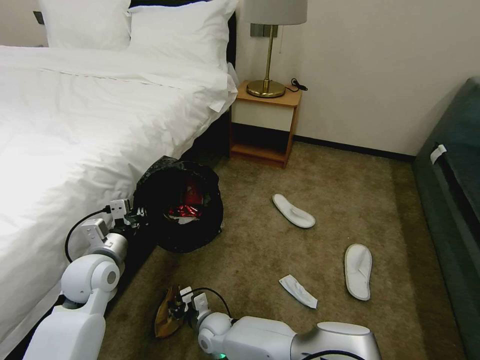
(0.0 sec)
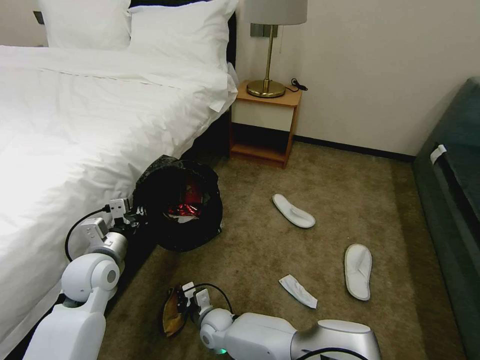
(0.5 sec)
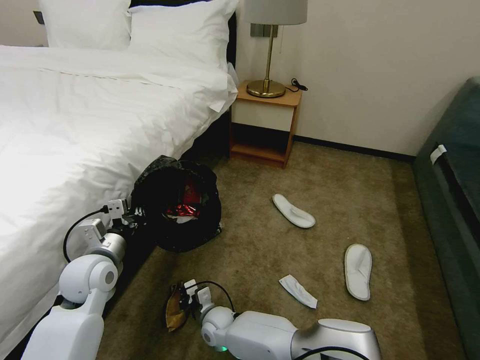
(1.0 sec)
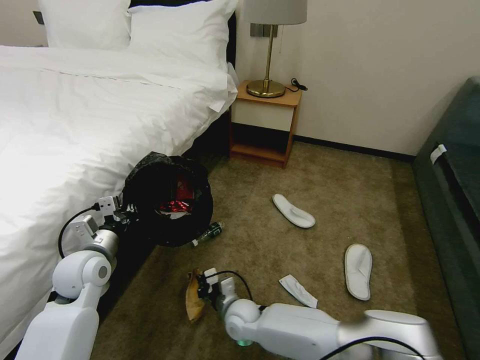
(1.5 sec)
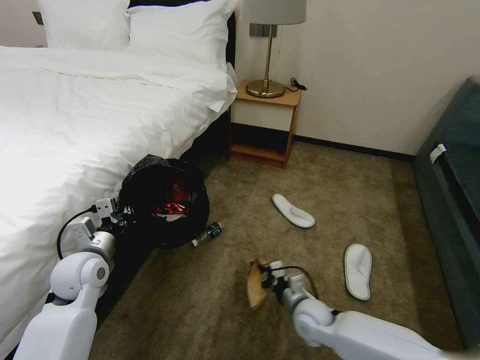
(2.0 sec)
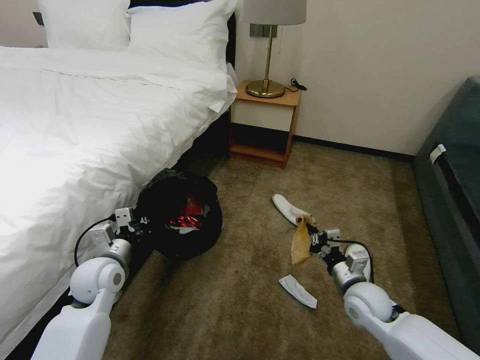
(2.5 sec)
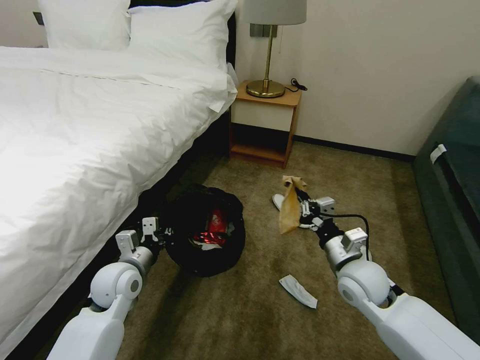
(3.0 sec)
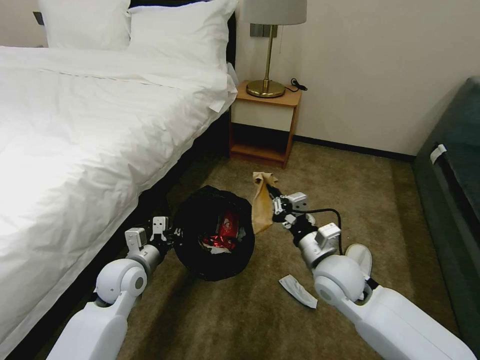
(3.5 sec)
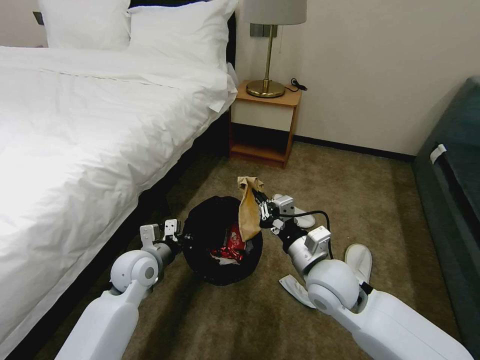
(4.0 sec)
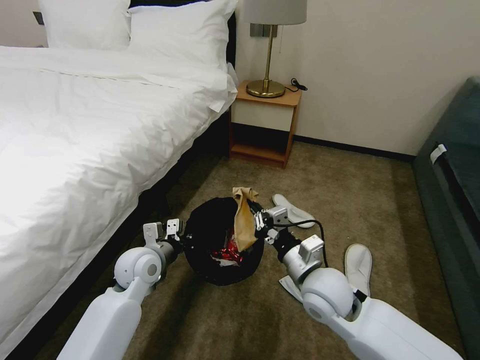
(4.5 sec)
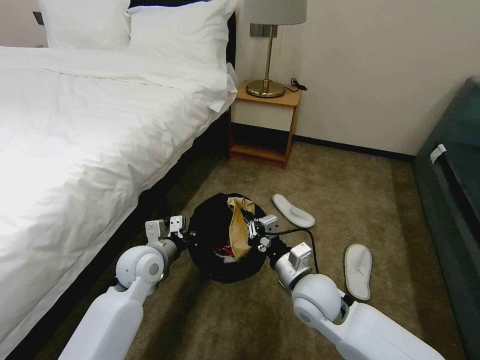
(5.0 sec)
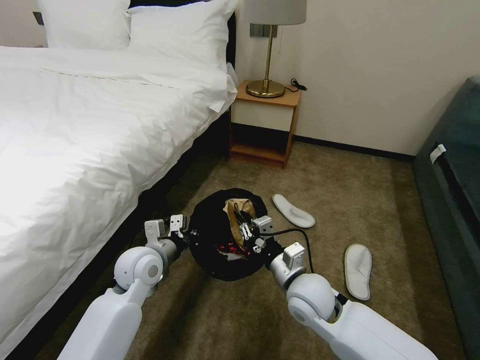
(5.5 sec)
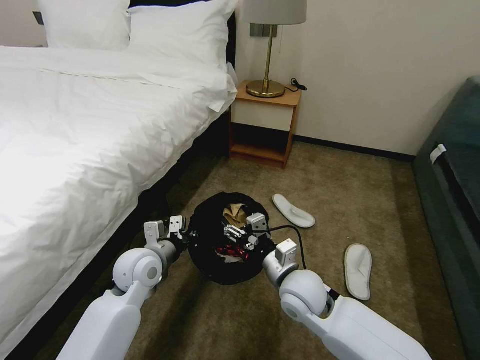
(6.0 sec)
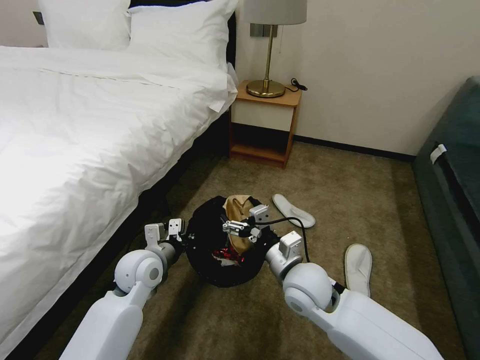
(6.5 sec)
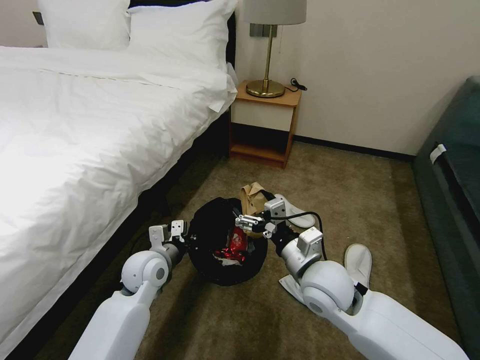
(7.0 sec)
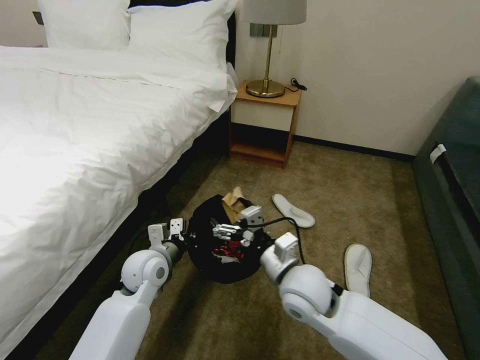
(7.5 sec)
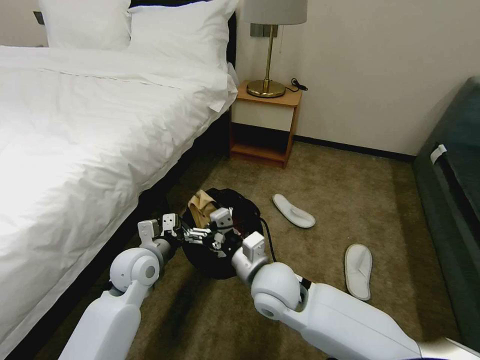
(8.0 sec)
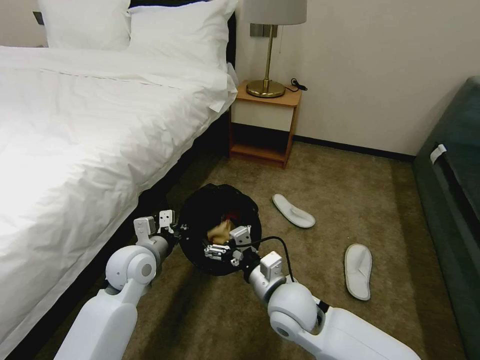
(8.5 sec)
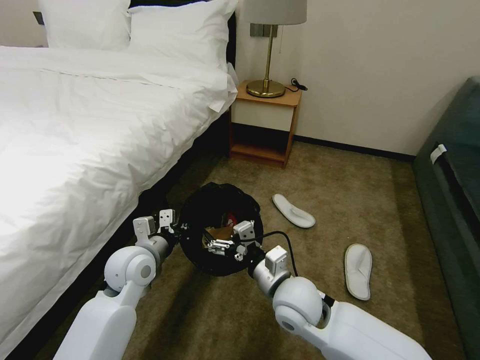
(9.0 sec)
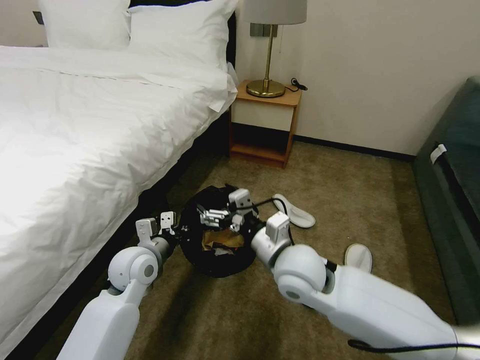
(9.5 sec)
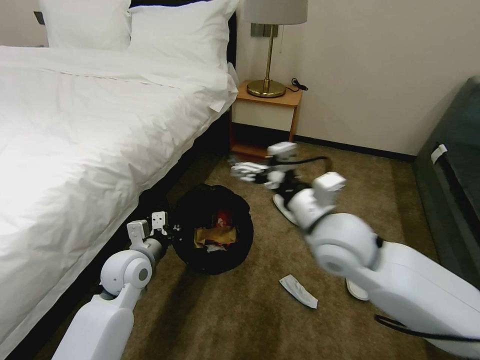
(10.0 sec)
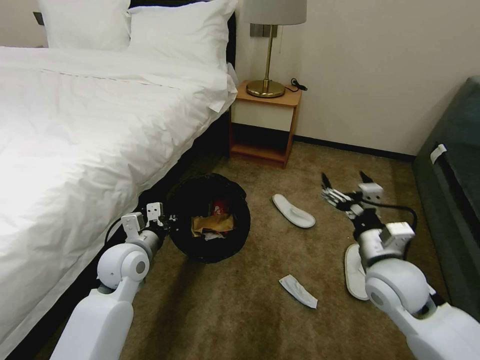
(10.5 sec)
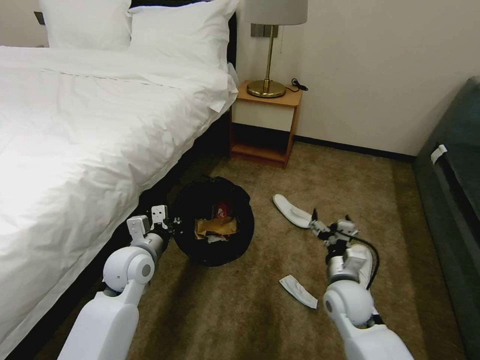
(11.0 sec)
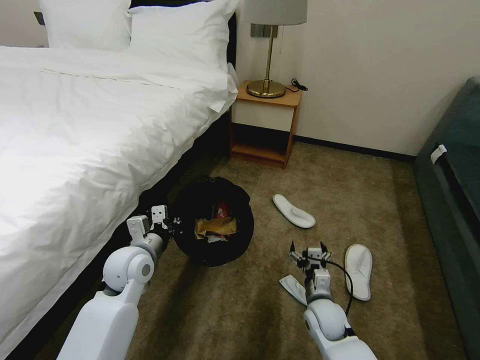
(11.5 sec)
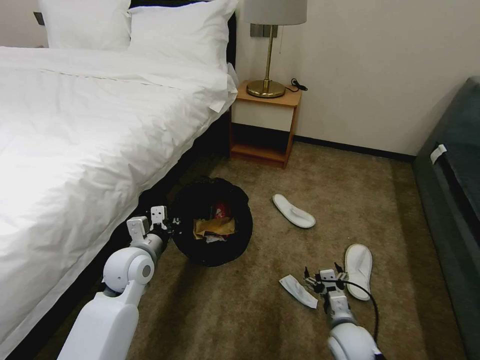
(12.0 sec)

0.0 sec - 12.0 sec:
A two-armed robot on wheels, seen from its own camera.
Task of the whole recording: Pick up the trash bin, then pick up the garbage on the floor and place it into the trash bin.
0.0 sec - 2.0 sec: The right gripper shifts approximately 25 cm to the right, and closes.
2.0 sec - 4.0 sec: The right gripper travels upward by some 20 cm; the left gripper goes about 10 cm to the right.
4.0 sec - 6.0 sec: The right gripper moves some 5 cm, and opens.
6.0 sec - 8.0 sec: The right gripper goes roughly 5 cm to the left.
8.0 sec - 10.0 sec: The right gripper shifts about 15 cm upward and to the right.
10.0 sec - 12.0 sec: The right gripper shifts about 30 cm downward.

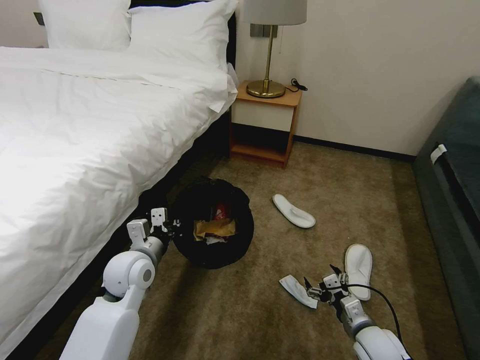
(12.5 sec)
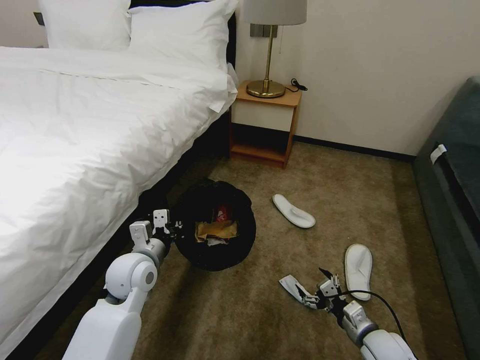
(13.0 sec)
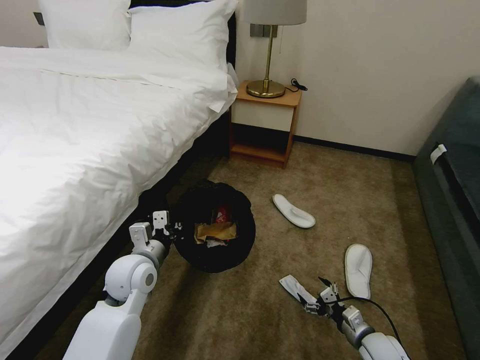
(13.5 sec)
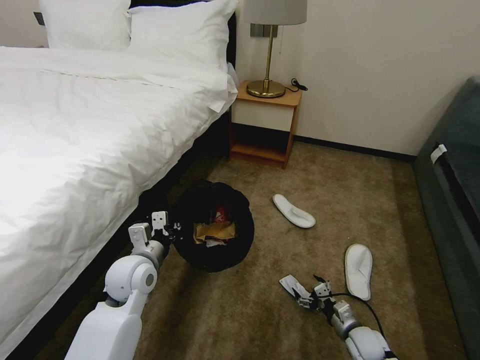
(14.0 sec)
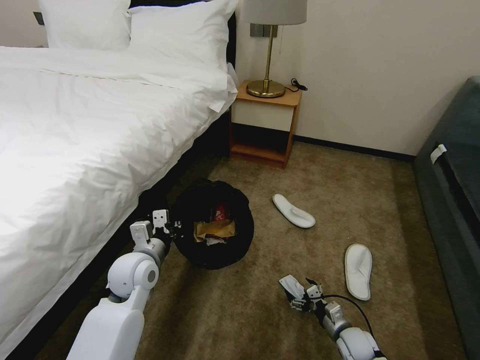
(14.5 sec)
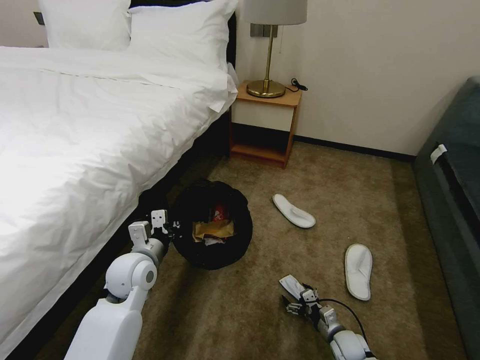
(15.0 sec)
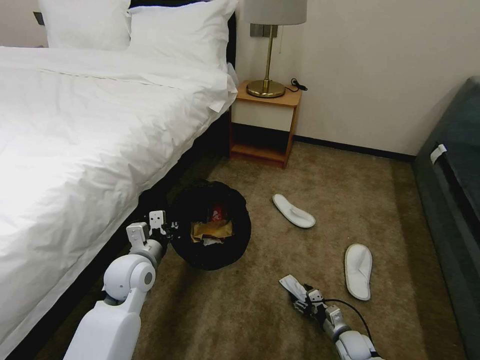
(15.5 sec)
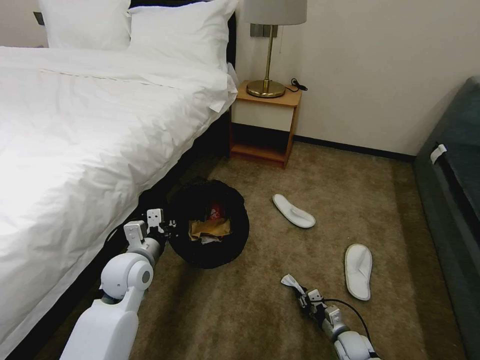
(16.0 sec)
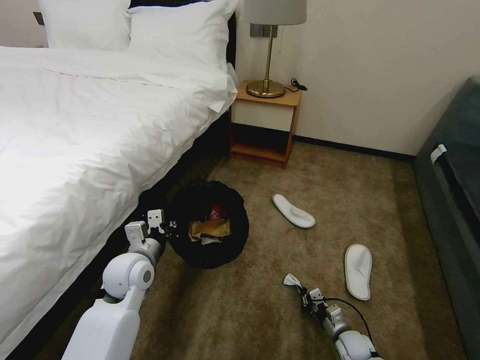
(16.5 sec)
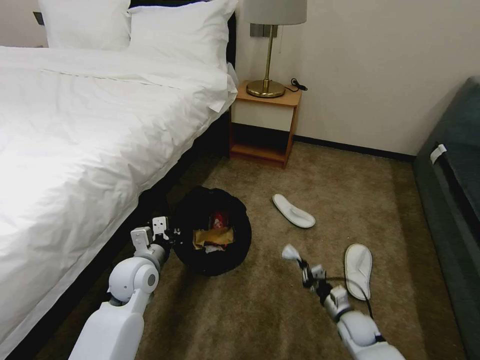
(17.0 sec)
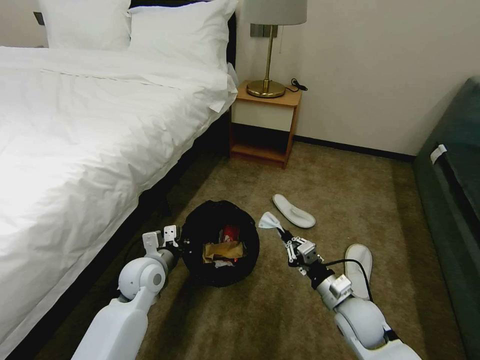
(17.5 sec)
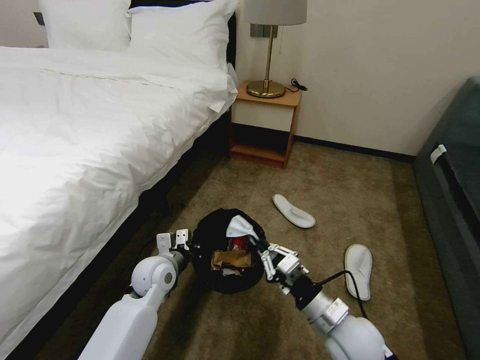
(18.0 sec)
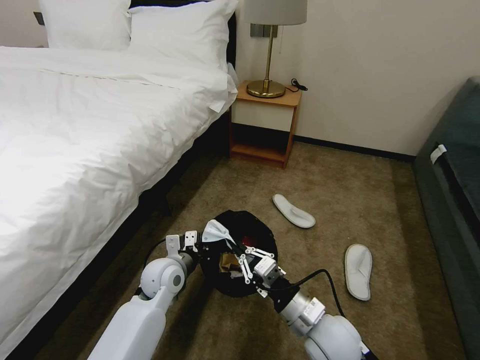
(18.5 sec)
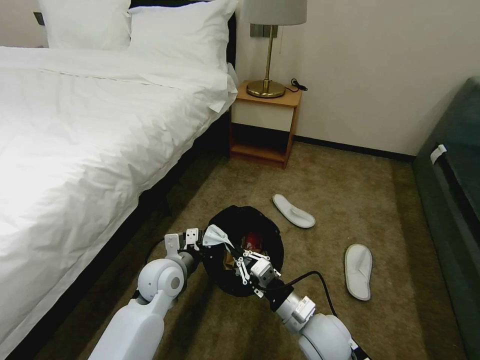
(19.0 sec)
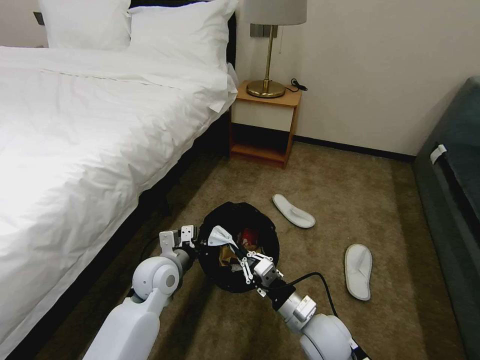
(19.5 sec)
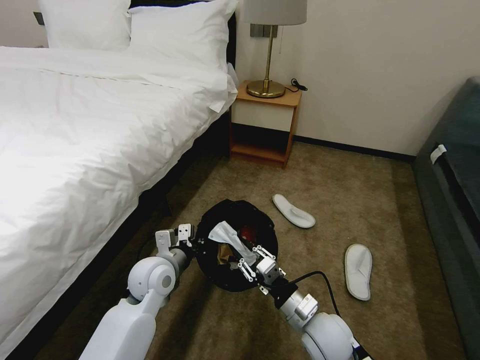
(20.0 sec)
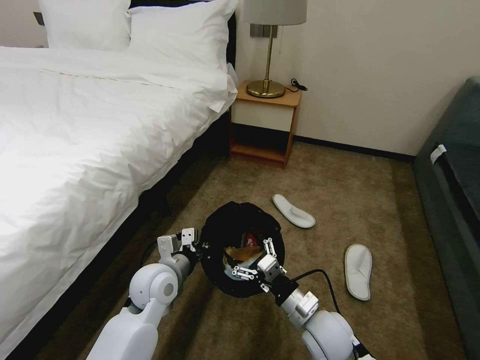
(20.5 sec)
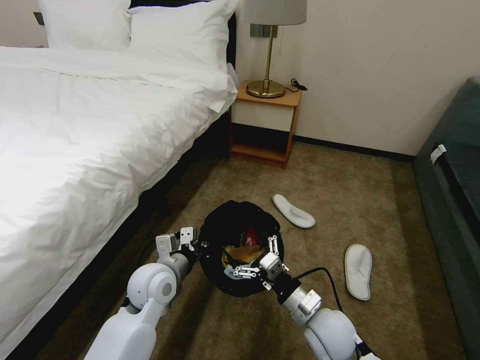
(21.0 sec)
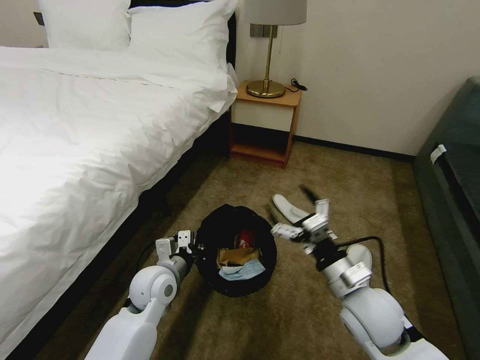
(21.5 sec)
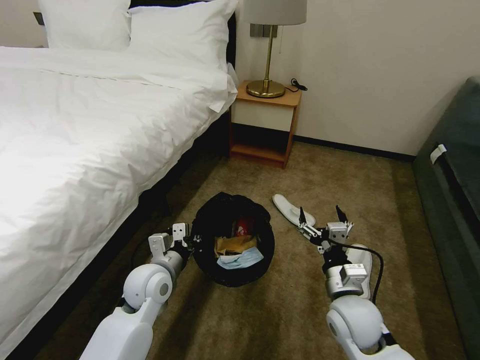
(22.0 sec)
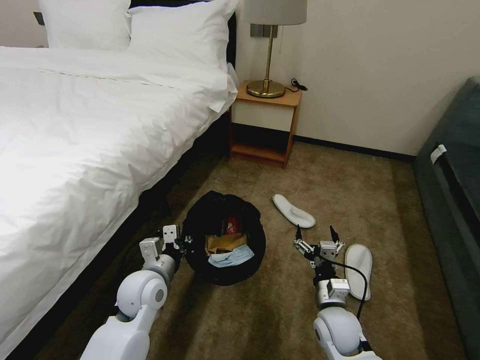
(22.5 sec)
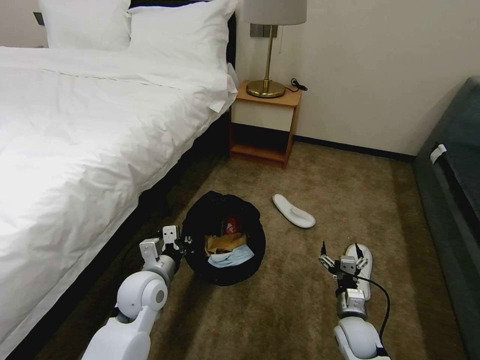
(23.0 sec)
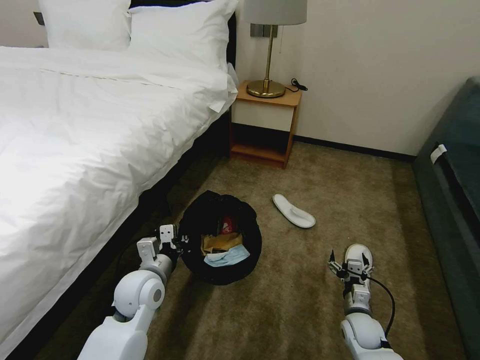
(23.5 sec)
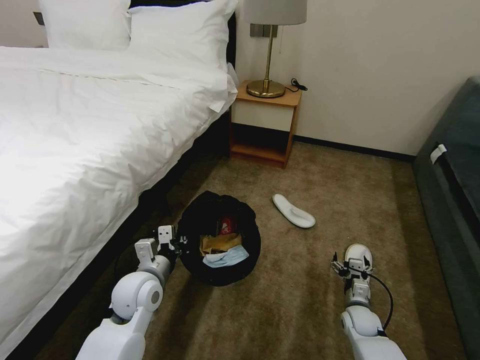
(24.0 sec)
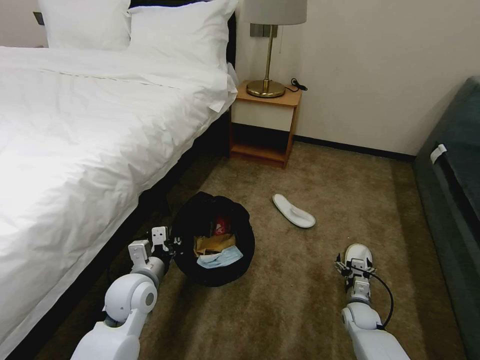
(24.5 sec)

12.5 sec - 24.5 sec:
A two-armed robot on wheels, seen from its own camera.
Task of the whole recording: Pick up the trash bin, then pick up the garbage on the floor and place it into the trash bin.
12.5 sec - 14.5 sec: The right gripper moves downward, some 10 cm.
14.5 sec - 16.5 sec: The right gripper closes its fingers.
16.5 sec - 18.5 sec: The left gripper is displaced to the right and downward by about 10 cm. Meanwhile the right gripper moves upward and to the left, roughly 30 cm.
18.5 sec - 20.5 sec: The right gripper opens. Meanwhile the left gripper shifts by about 5 cm.
20.5 sec - 22.5 sec: The right gripper goes upward and returns, about 10 cm each way.
22.5 sec - 24.5 sec: The right gripper is displaced downward, to the right and forward by approximately 20 cm.

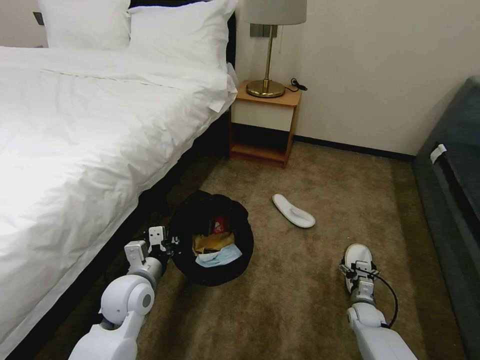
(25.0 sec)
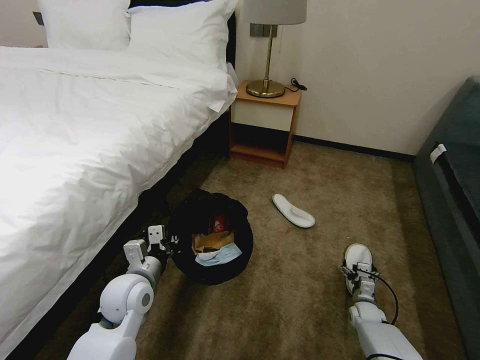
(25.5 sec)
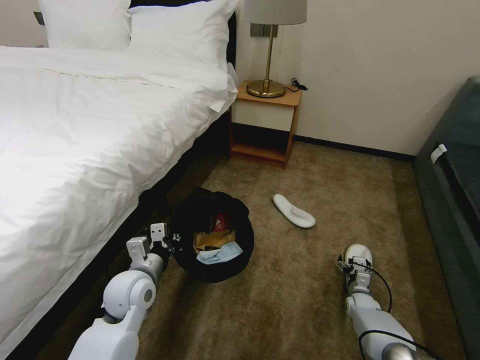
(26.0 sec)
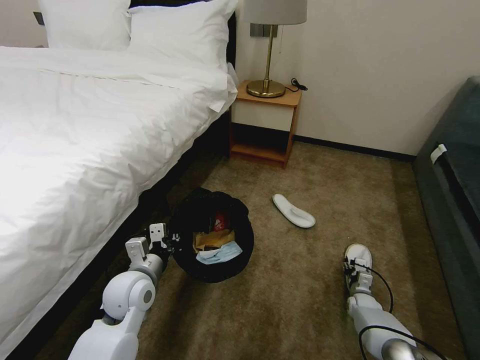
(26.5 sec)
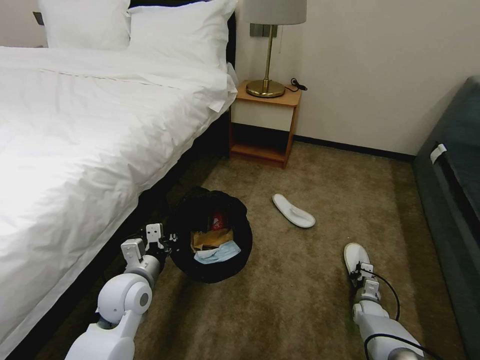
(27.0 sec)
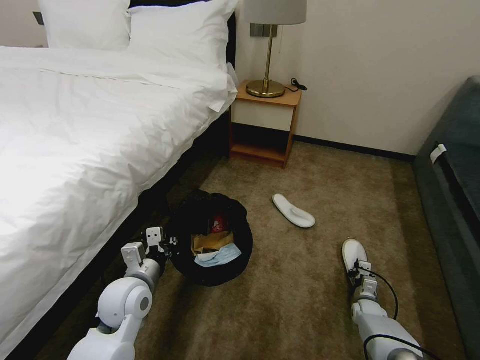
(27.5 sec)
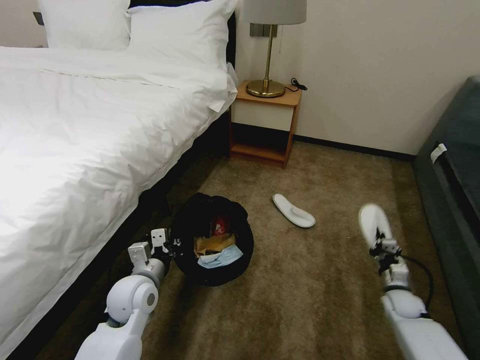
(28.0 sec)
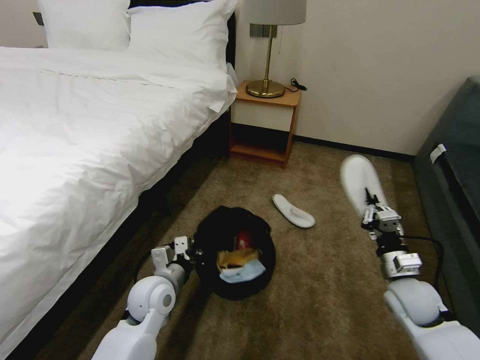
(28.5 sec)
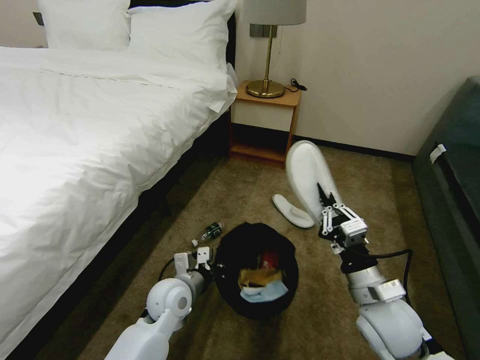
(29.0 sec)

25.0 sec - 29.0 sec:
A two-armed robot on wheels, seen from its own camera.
Task of the whole recording: Pick up the trash bin, then pick up the garbage on the floor and place it into the trash bin.
25.0 sec - 27.0 sec: The right gripper ends up roughly 5 cm from where it was, and closes its fingers.
27.0 sec - 29.0 sec: The left gripper goes roughly 10 cm to the right and downward, while the right gripper moves upward and to the left, some 35 cm.
